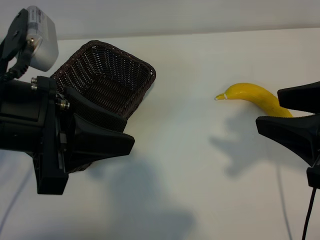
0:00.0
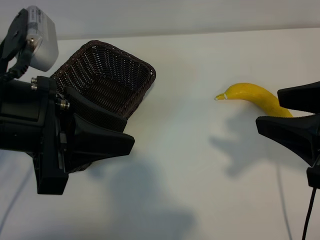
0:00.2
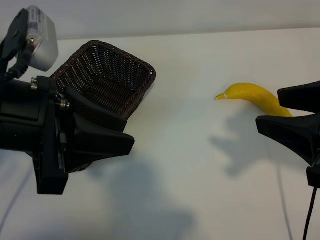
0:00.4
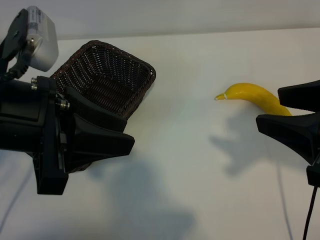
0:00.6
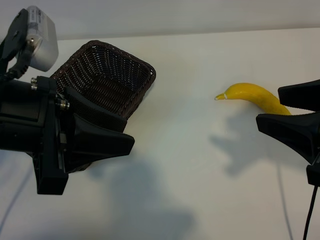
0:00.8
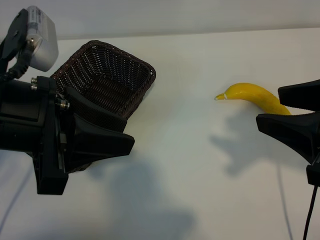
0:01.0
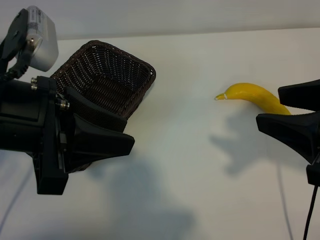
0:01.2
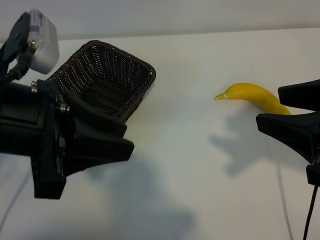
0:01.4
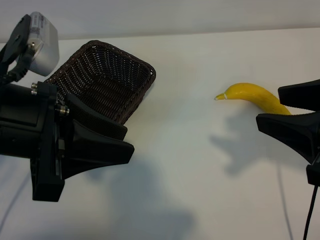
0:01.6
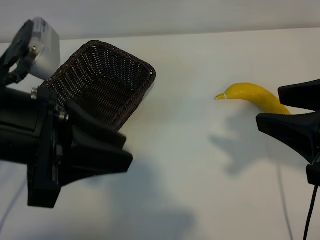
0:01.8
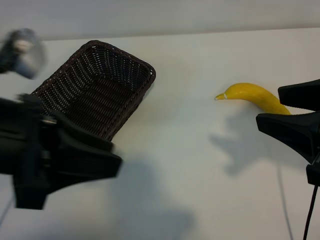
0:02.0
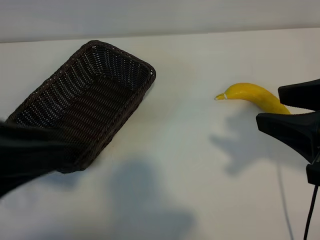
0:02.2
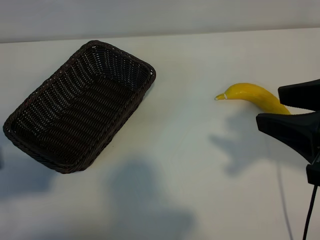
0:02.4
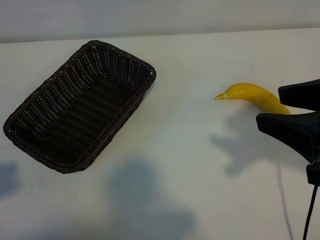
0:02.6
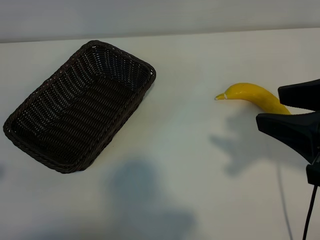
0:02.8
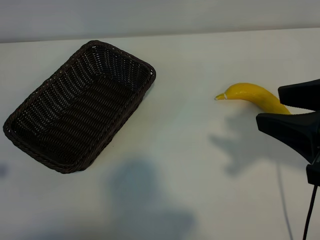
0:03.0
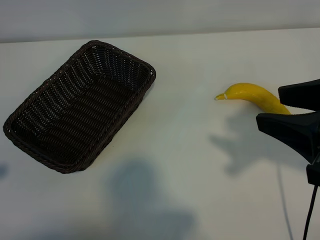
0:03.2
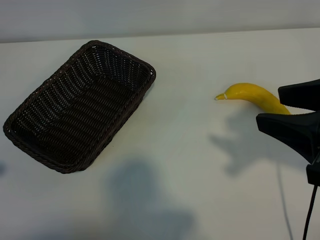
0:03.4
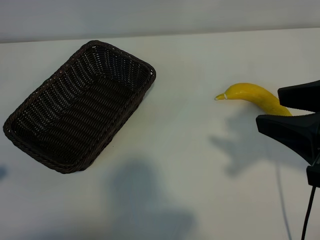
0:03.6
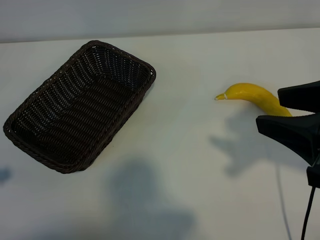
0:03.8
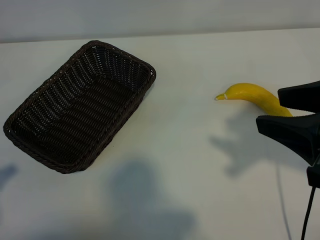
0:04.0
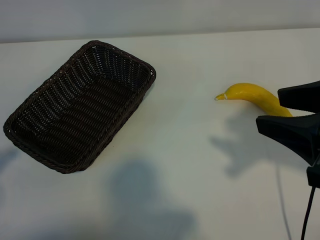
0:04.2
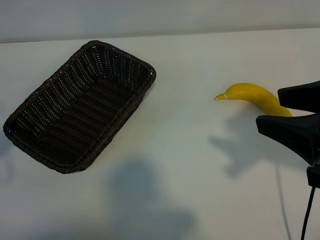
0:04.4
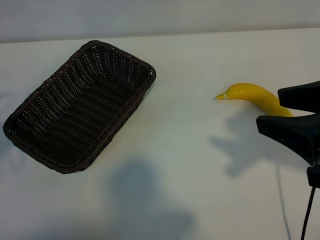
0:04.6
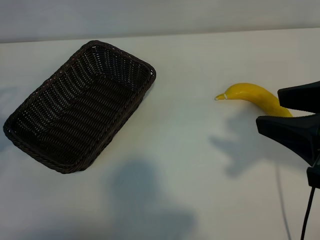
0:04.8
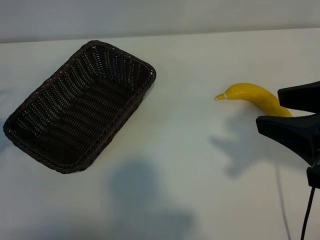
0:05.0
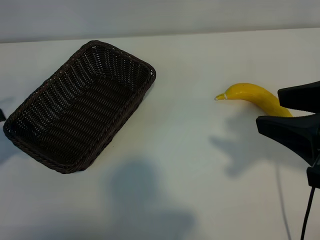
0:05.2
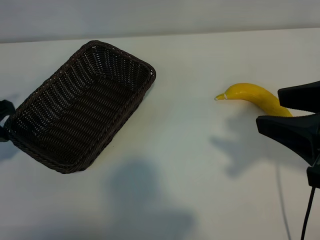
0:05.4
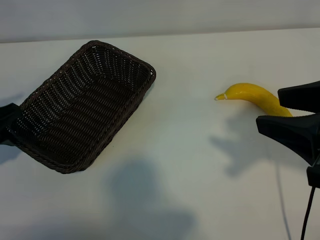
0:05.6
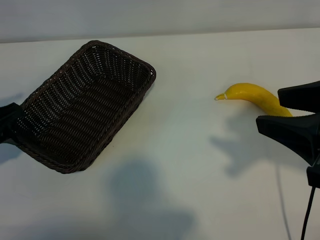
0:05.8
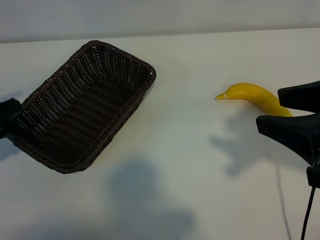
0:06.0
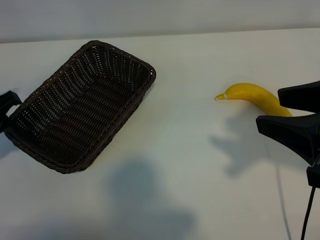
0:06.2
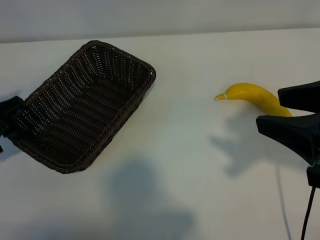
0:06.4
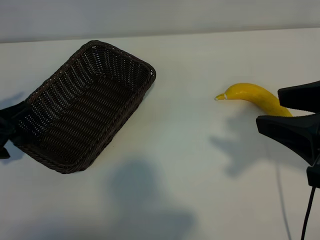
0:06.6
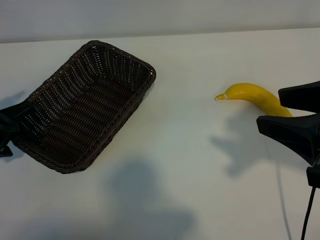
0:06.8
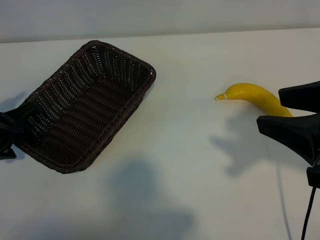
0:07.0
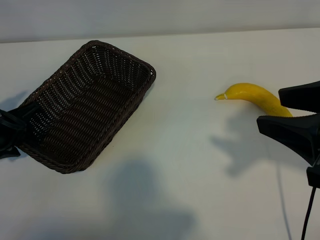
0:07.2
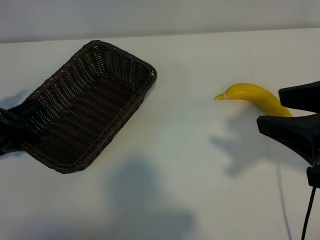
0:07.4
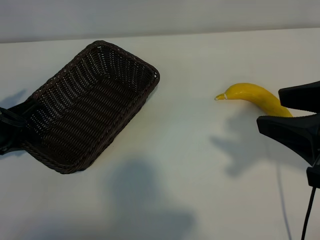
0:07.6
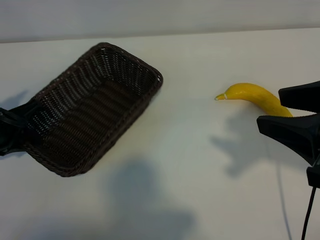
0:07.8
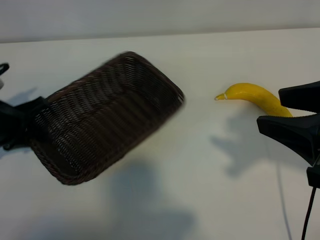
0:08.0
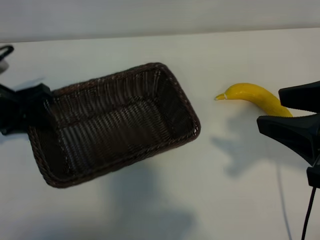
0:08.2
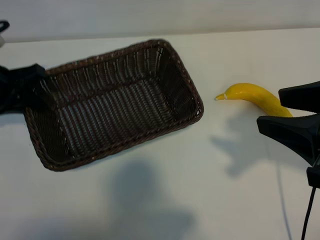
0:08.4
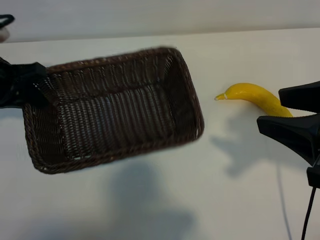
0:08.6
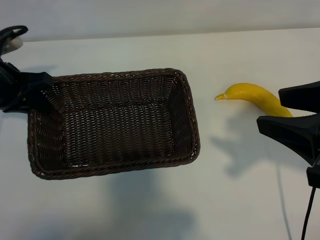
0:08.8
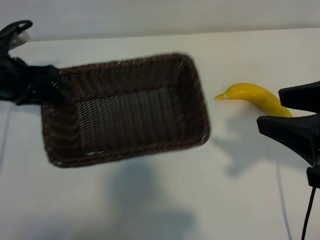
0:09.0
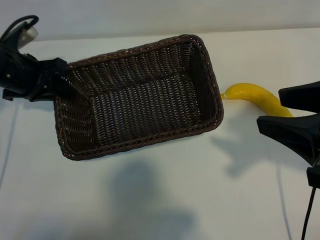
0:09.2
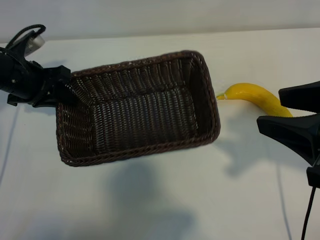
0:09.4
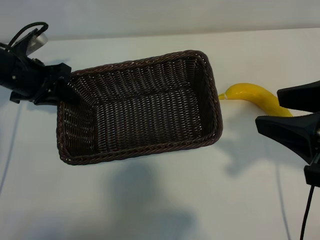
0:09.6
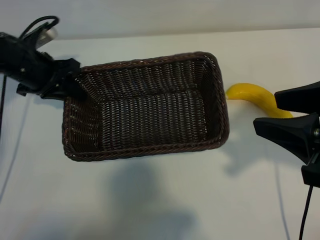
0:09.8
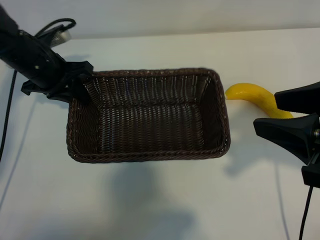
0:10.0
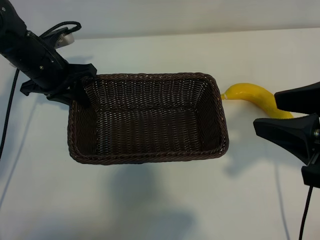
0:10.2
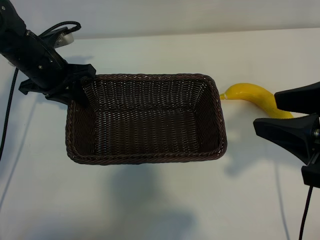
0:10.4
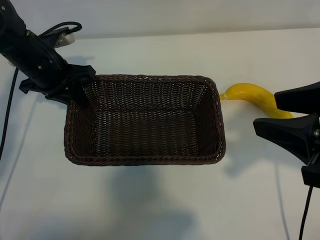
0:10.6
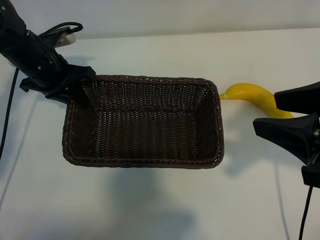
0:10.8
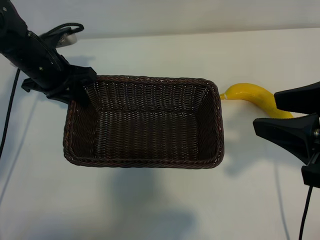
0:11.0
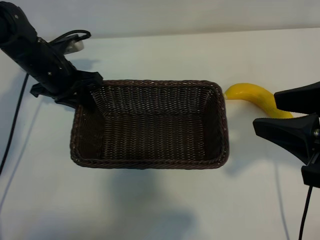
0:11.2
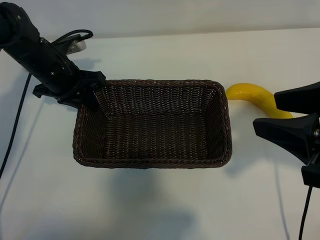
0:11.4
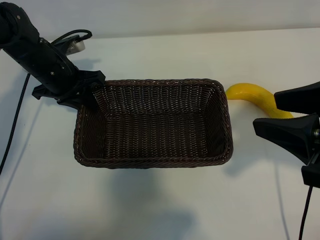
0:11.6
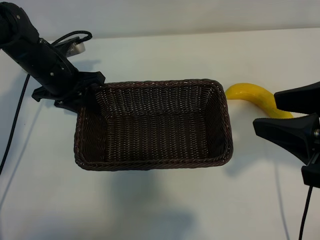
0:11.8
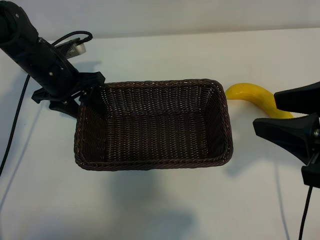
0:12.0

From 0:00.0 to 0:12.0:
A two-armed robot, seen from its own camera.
Task of the whole recording: pick up the banana and put it into the basket.
Step, from 0:00.0 to 0:07.6: Grasp the basket with the left gripper.
Step, from 0:07.8 to 0:12.0: Place the basket in the center of the table with the left gripper.

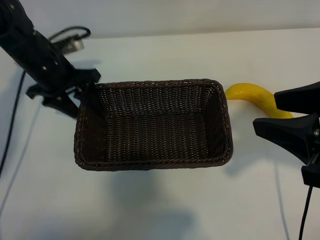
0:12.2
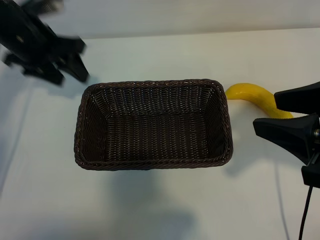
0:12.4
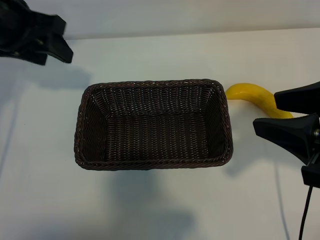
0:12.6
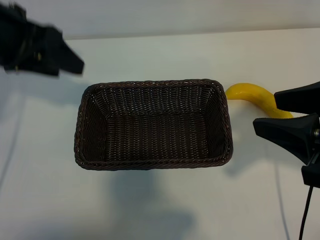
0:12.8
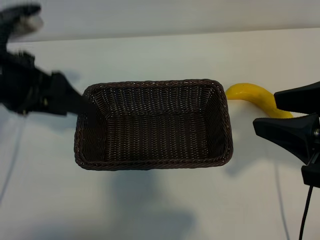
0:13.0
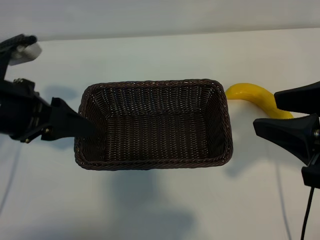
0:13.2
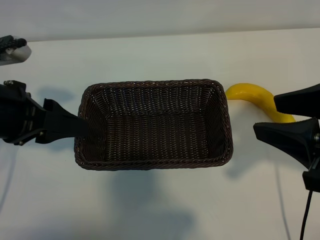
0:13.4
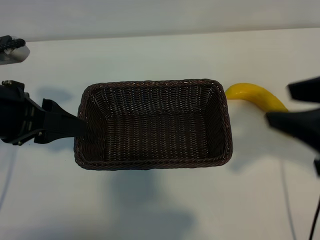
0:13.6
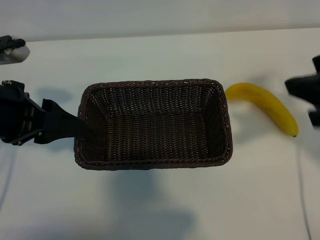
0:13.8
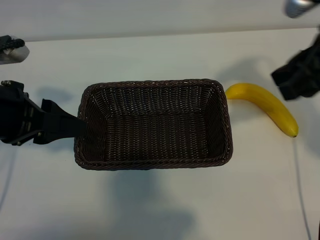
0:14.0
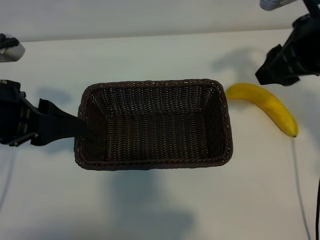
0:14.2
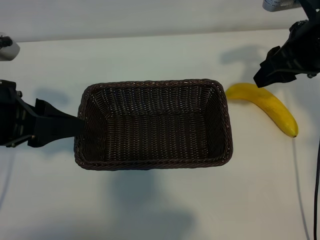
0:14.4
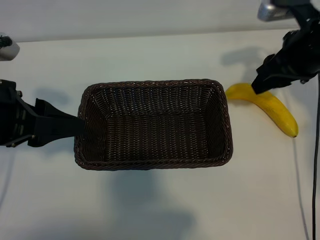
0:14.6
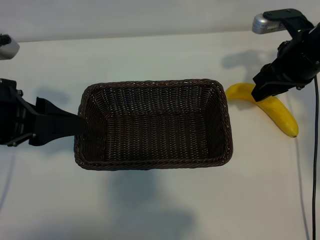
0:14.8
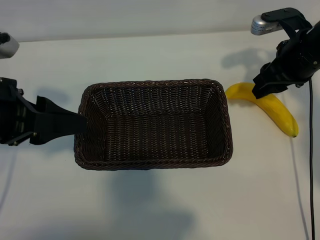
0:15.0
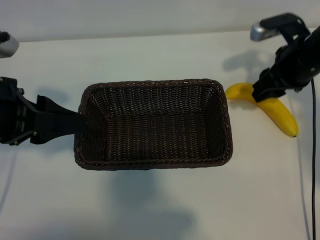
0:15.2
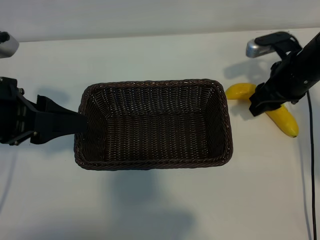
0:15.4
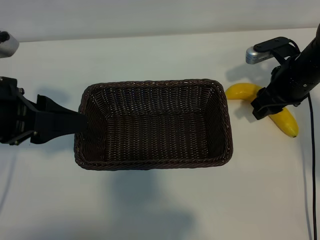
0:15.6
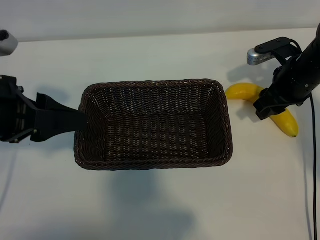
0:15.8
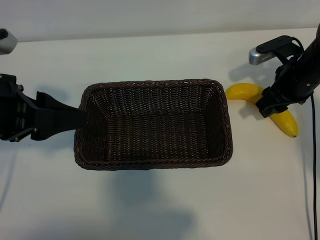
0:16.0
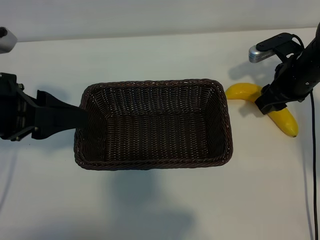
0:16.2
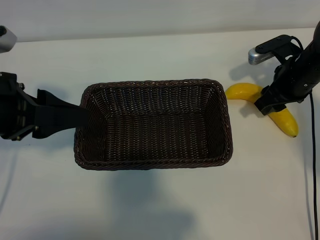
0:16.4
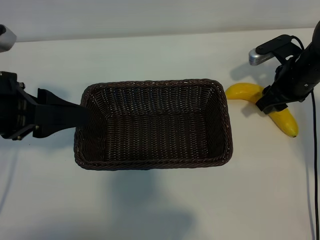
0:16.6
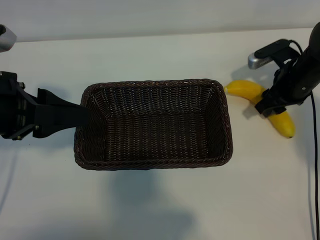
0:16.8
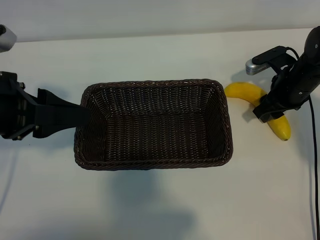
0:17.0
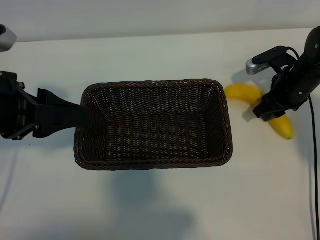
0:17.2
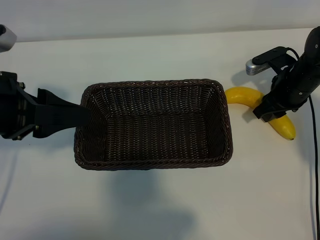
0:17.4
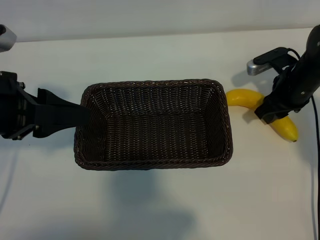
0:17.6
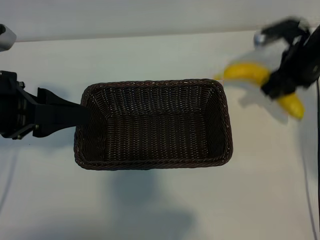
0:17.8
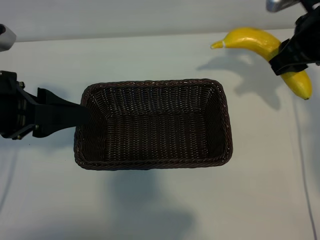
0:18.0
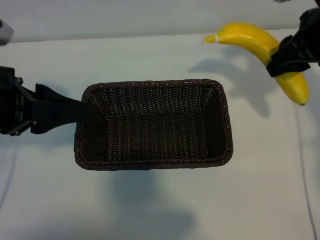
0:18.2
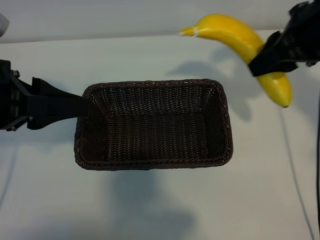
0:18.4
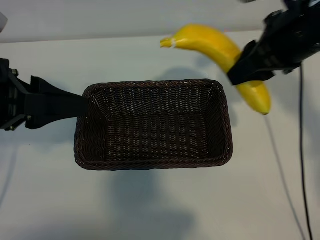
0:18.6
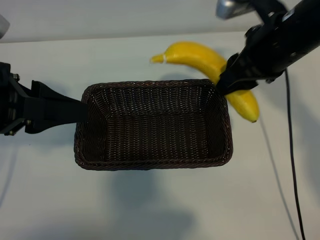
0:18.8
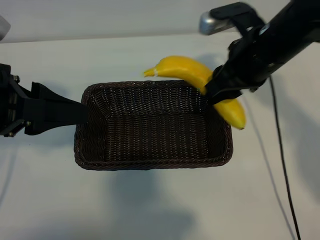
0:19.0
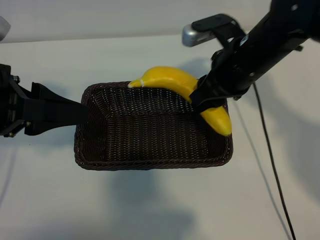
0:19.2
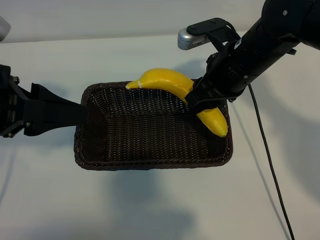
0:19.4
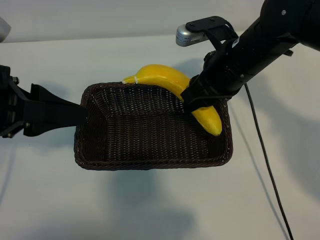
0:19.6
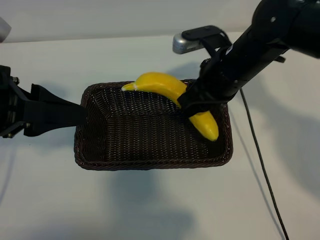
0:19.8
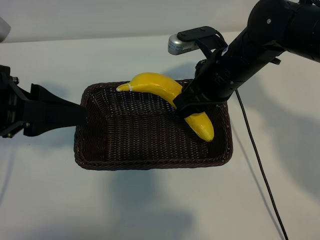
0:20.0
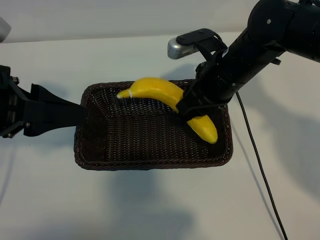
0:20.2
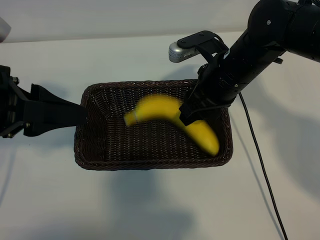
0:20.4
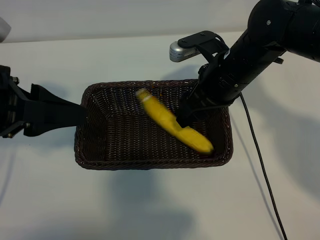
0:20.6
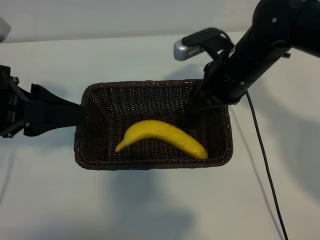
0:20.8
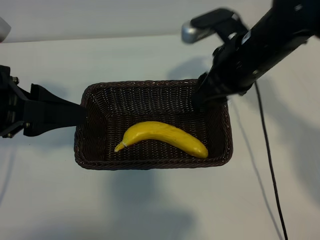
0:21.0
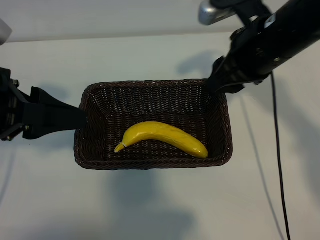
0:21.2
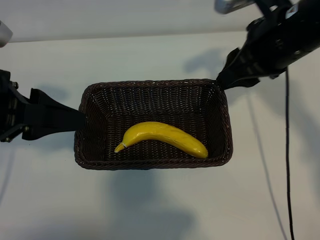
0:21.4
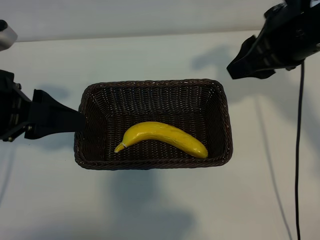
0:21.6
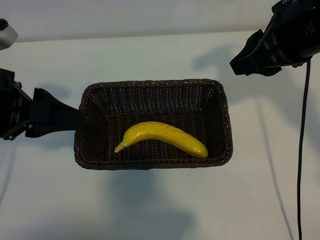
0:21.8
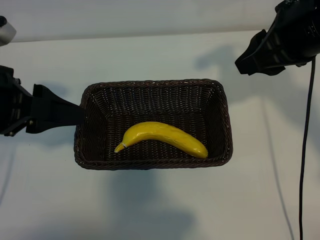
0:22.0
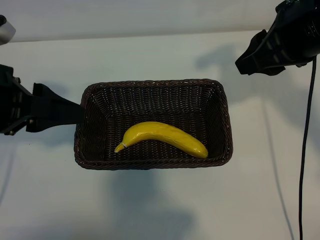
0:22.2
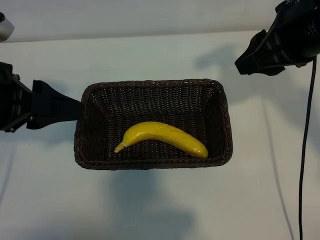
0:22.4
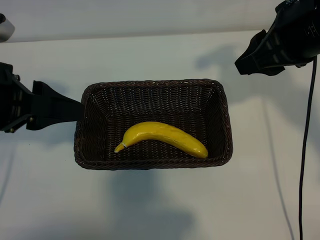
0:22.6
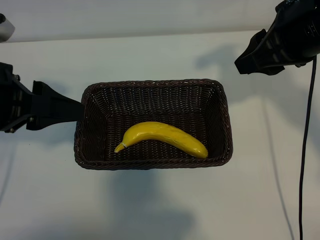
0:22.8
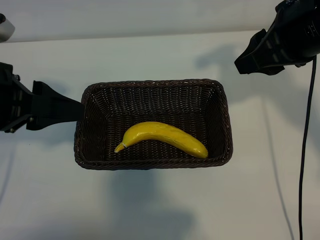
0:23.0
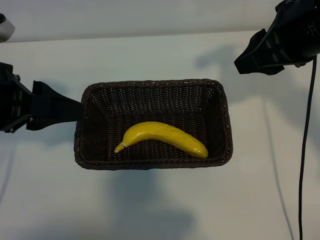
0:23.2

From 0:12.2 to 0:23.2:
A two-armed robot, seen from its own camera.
Task of the whole recording: pick up the banana and put it into the basket.
Step, from 0:12.2 to 0:17.2: Grasp the banana with right gripper.
Step, from 0:17.4 to 0:20.8: Place the banana in the basket with right gripper.
